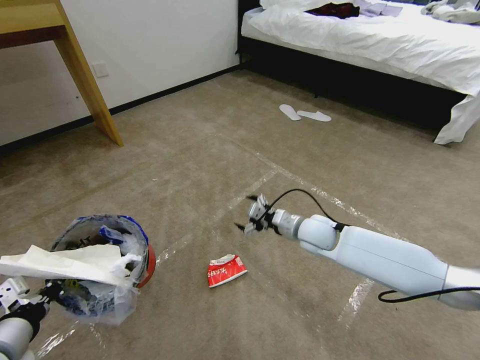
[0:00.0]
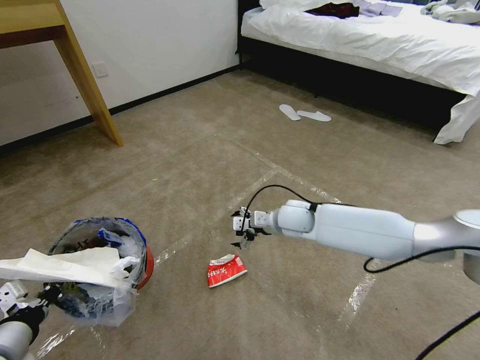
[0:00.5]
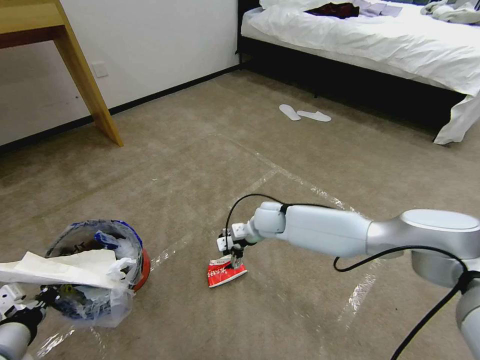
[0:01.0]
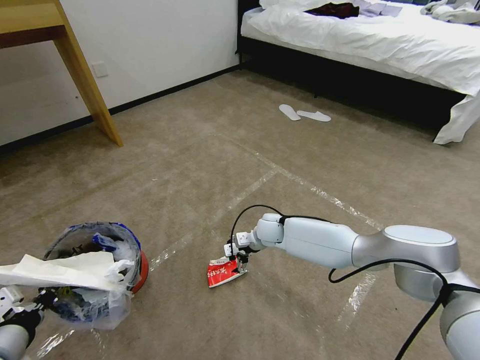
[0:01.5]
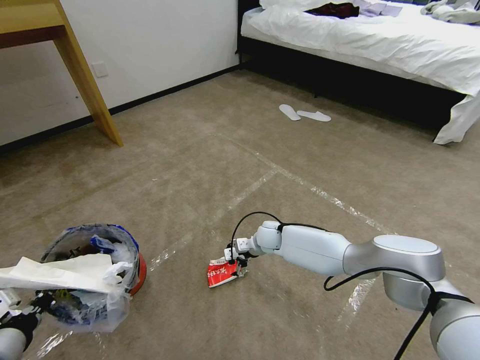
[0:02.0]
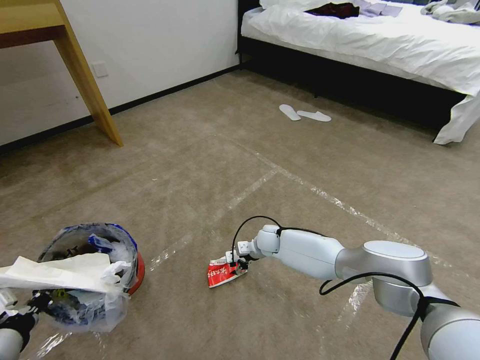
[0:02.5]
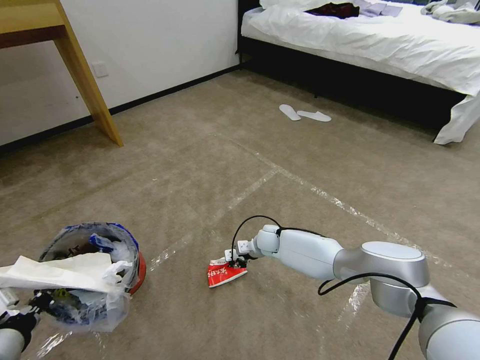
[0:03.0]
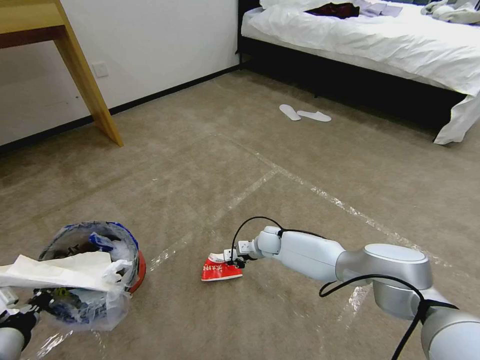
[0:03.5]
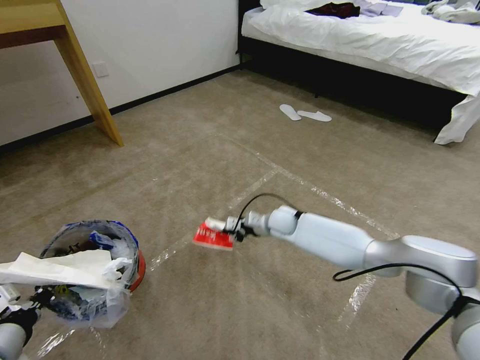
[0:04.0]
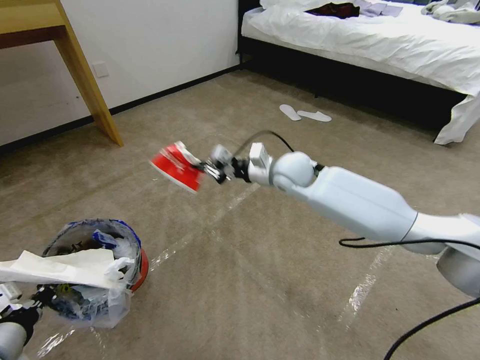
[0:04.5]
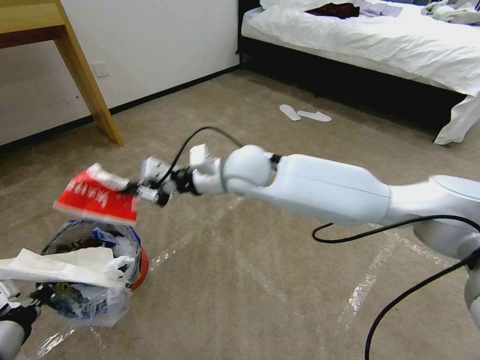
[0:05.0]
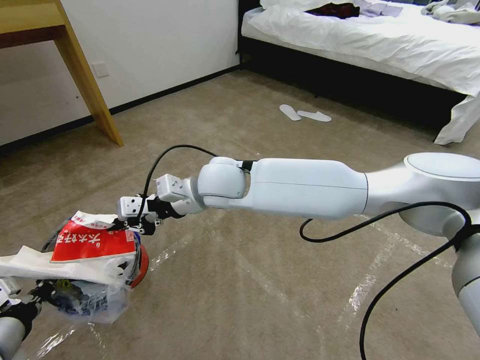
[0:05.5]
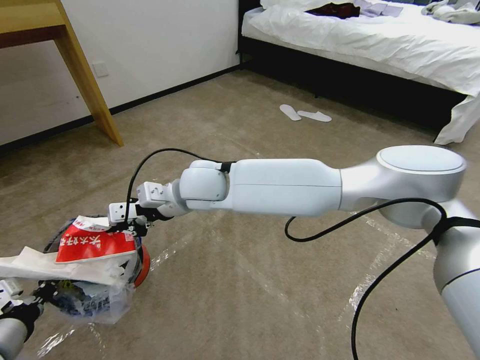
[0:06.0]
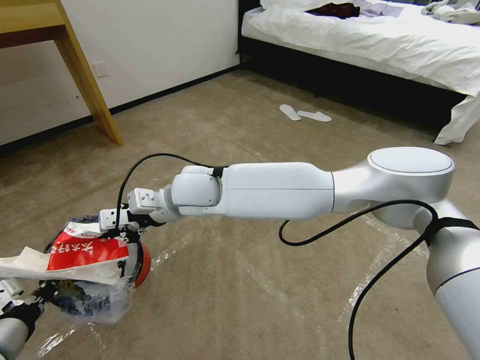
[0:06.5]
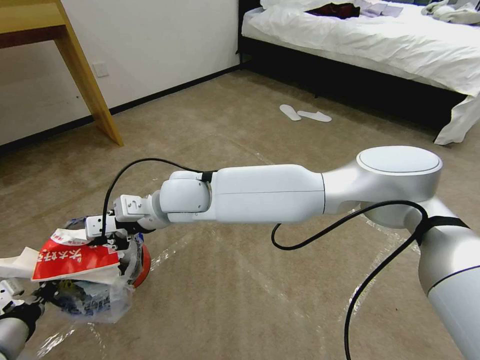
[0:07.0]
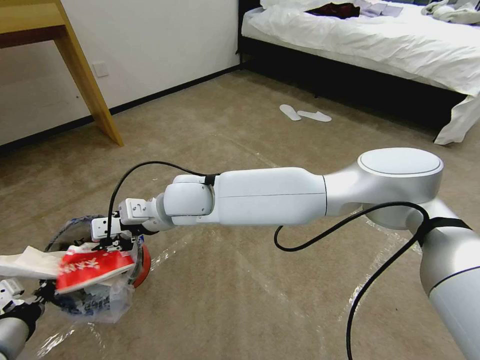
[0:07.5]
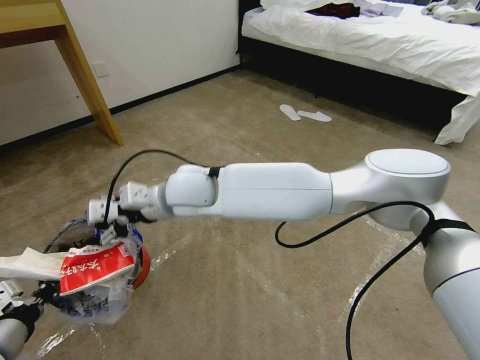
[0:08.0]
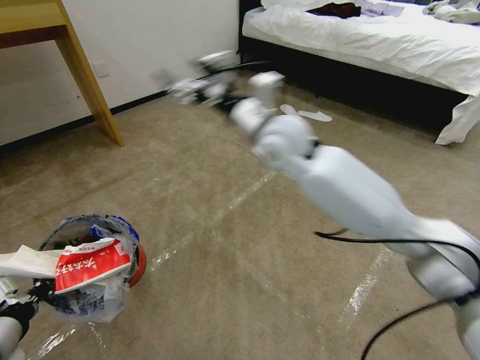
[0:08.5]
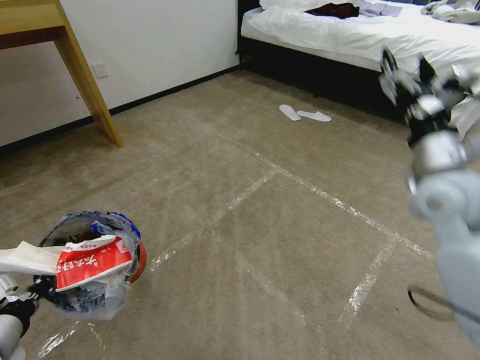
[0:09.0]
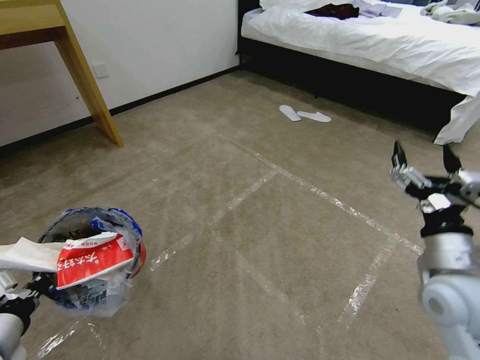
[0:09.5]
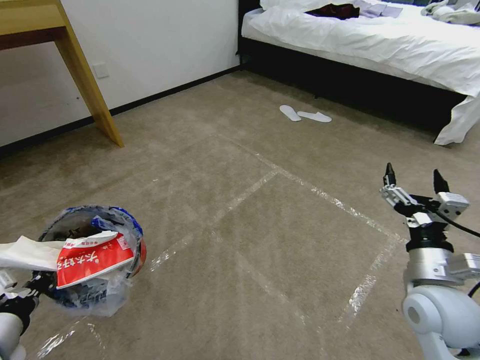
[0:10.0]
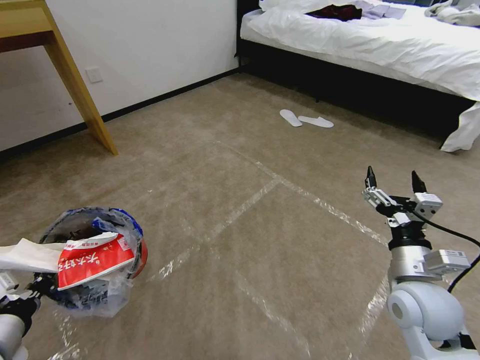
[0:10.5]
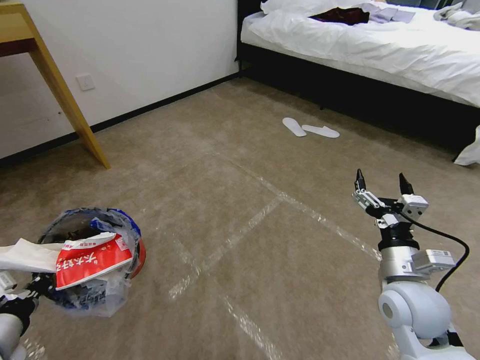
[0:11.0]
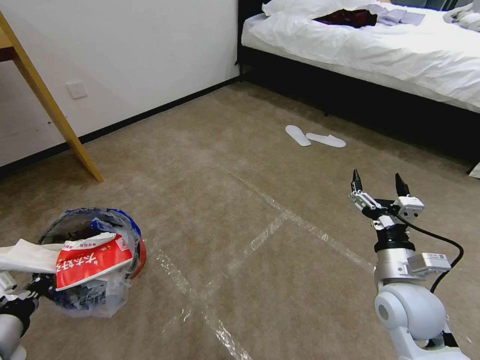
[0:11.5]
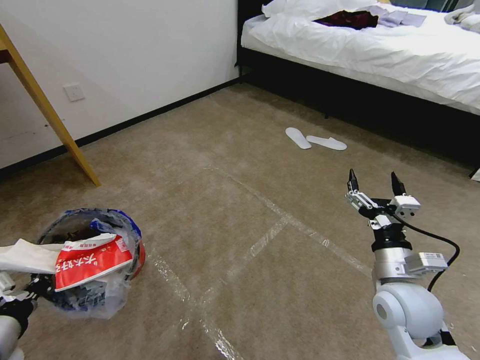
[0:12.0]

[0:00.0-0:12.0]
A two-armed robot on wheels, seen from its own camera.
Task of the whole recording: Pick up the trash bin and place the garbage on the floor into it.
0:00.0 to 0:02.0: The right gripper shifts about 15 cm downward, to the left and forward.
0:02.0 to 0:04.0: The right gripper heads upward, covering approximately 5 cm, and closes up.
0:04.0 to 0:06.0: The right gripper is displaced upward, to the left and backward by some 35 cm.
0:06.0 to 0:08.0: The right gripper opens its fingers.
0:08.0 to 0:10.0: The right gripper shifts some 50 cm to the right and backward.

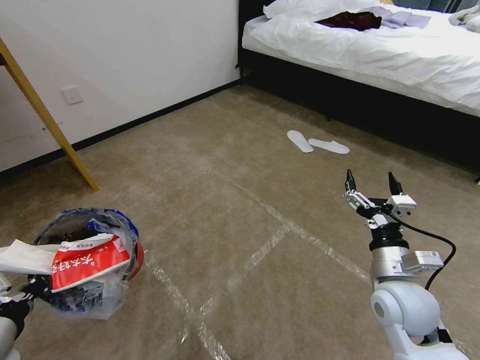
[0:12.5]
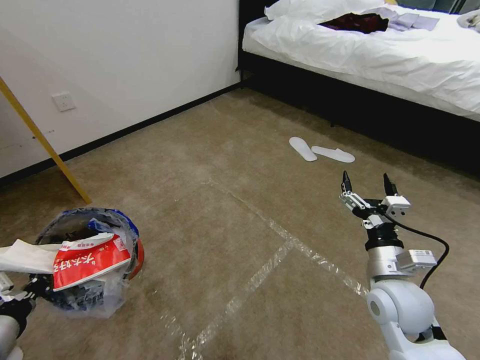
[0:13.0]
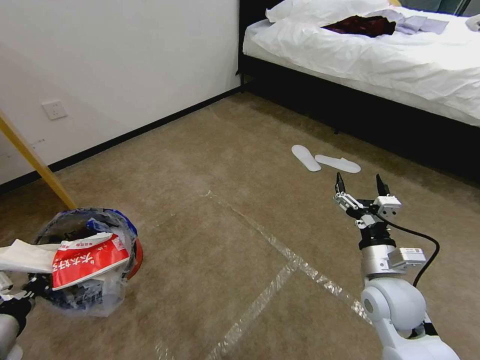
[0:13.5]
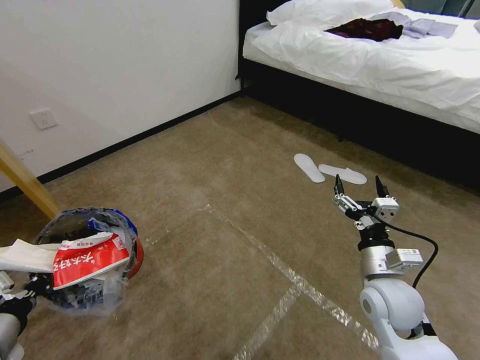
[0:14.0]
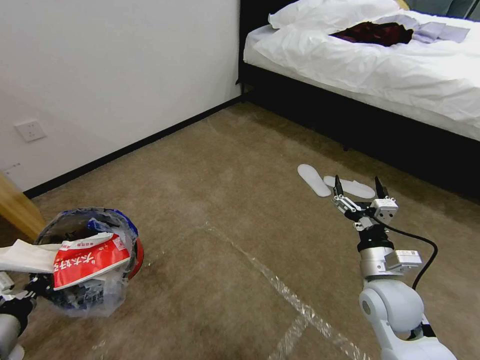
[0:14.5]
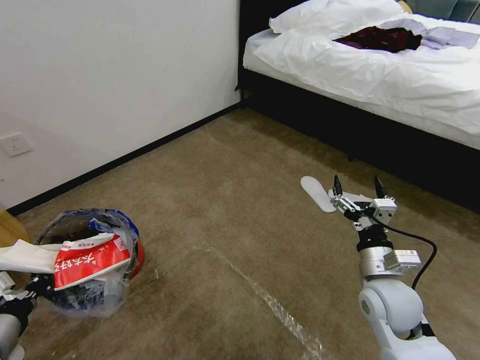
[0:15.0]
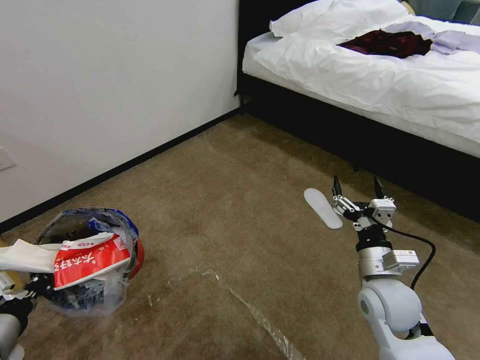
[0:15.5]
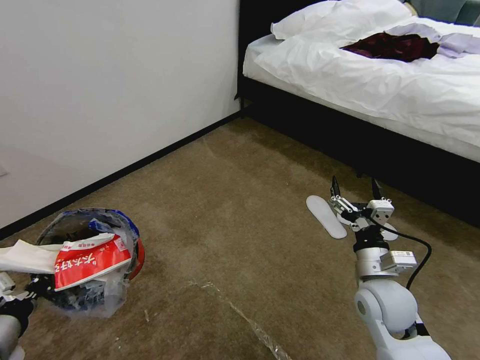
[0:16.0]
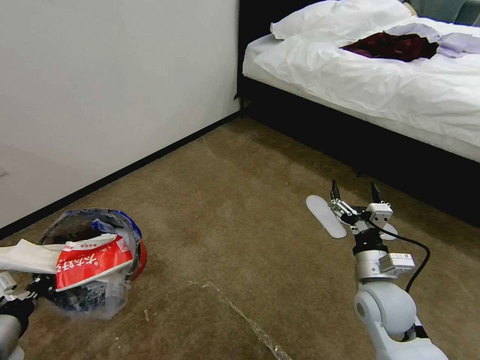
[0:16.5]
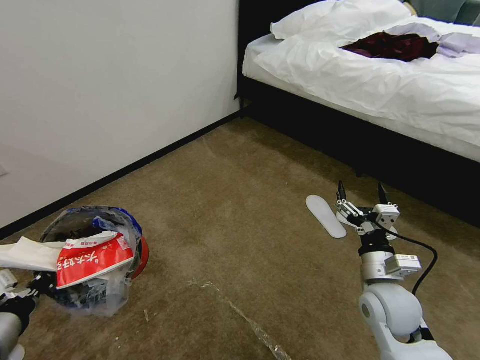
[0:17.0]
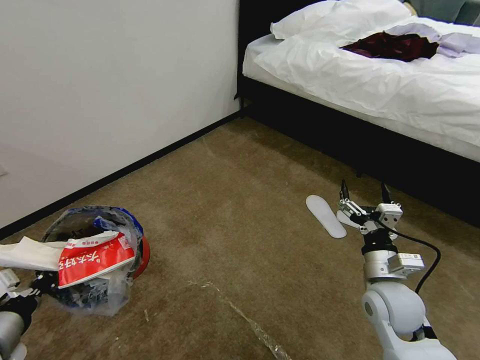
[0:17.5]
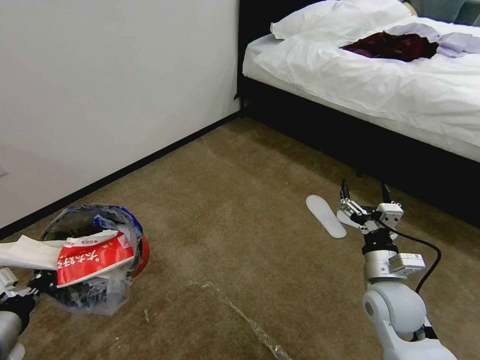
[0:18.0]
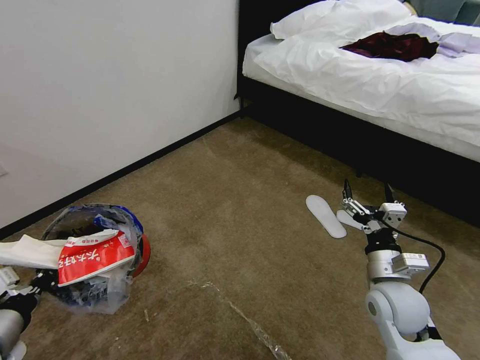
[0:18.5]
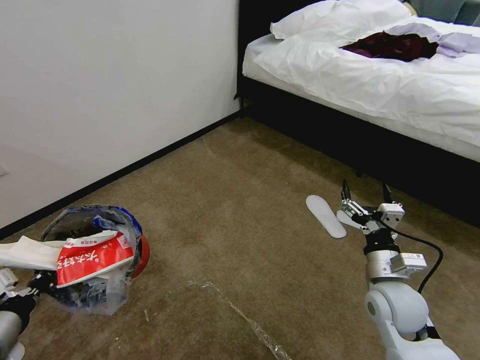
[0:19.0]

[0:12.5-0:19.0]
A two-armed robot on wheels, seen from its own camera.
Task of the whole recording: Pick up the trash bin and place the garbage on the floor into it.
0:17.0 to 0:19.0: Both grippers stay about where they are.
